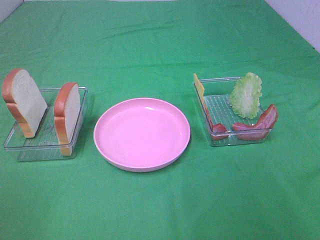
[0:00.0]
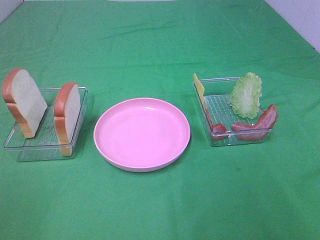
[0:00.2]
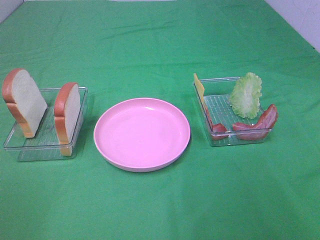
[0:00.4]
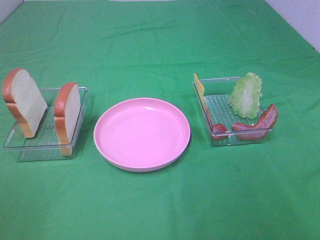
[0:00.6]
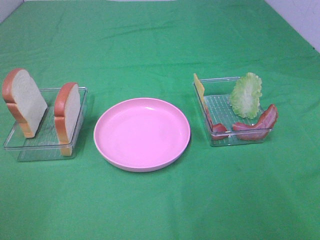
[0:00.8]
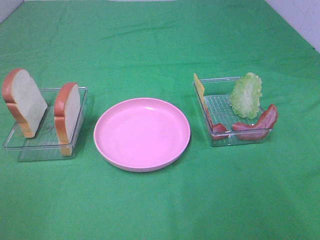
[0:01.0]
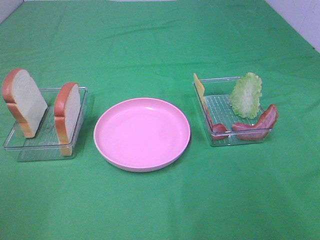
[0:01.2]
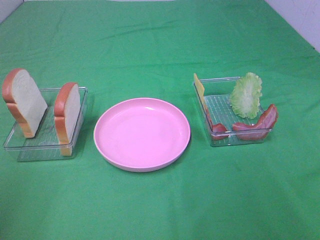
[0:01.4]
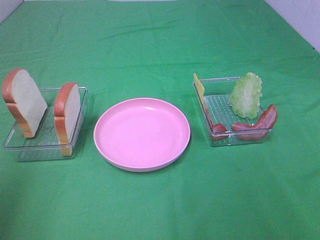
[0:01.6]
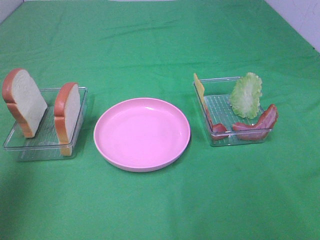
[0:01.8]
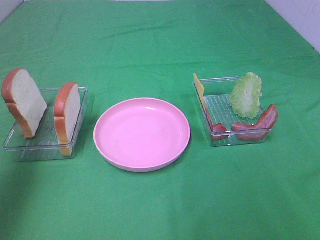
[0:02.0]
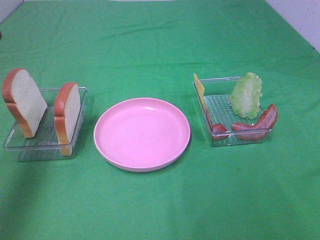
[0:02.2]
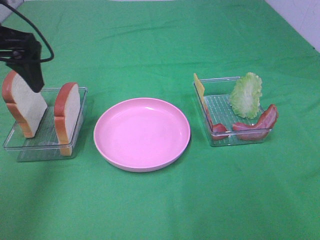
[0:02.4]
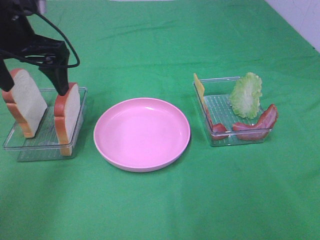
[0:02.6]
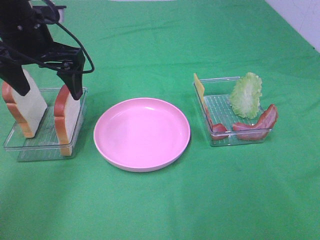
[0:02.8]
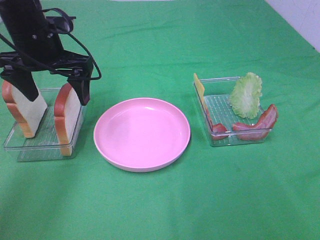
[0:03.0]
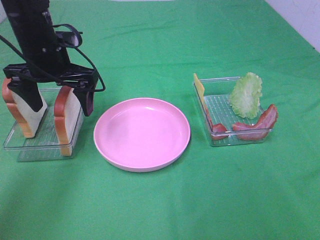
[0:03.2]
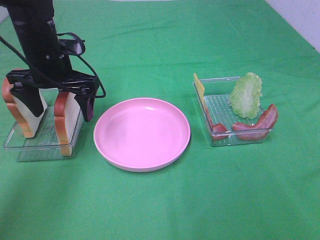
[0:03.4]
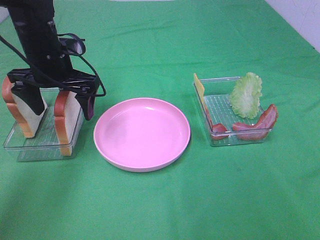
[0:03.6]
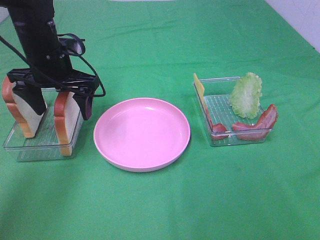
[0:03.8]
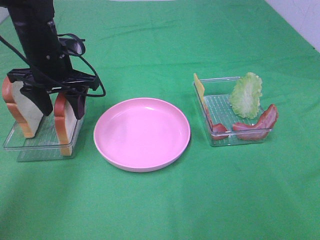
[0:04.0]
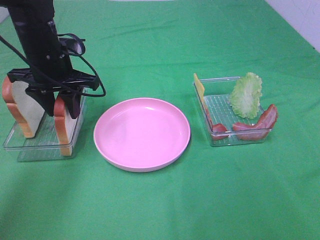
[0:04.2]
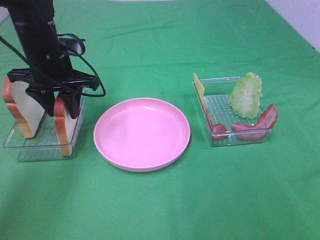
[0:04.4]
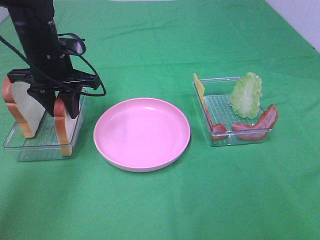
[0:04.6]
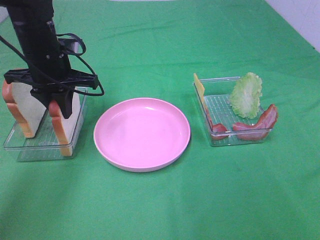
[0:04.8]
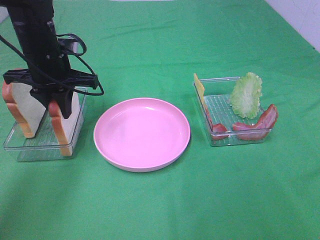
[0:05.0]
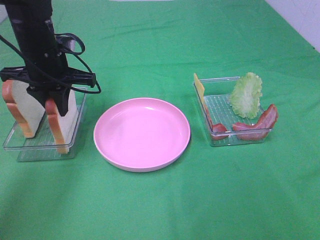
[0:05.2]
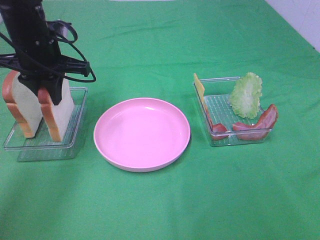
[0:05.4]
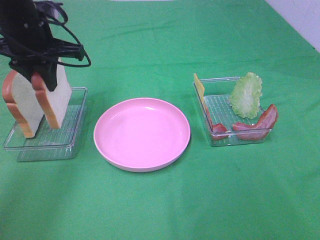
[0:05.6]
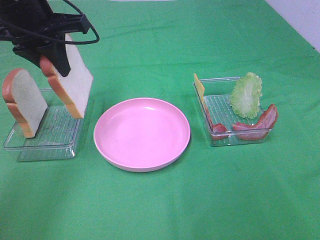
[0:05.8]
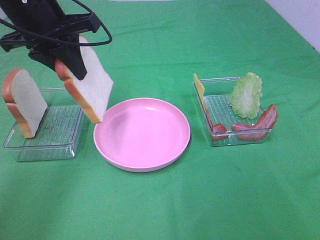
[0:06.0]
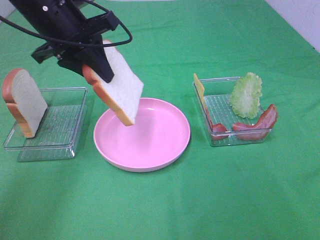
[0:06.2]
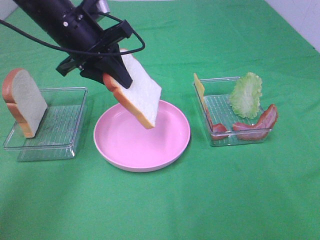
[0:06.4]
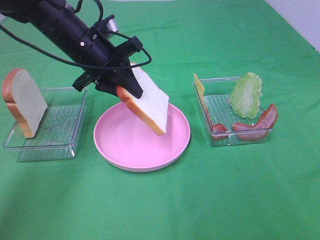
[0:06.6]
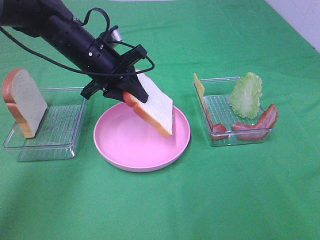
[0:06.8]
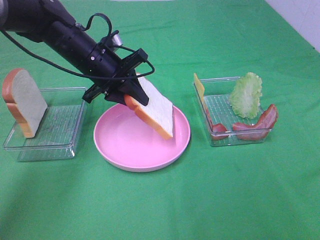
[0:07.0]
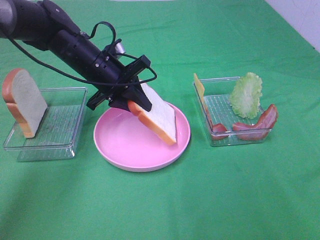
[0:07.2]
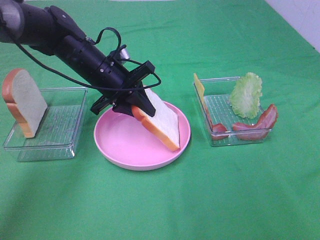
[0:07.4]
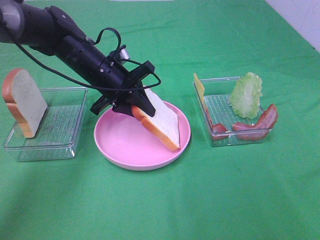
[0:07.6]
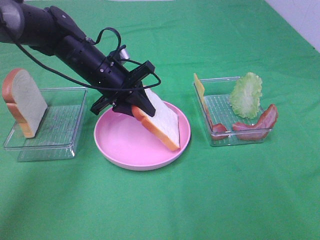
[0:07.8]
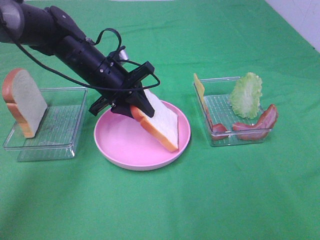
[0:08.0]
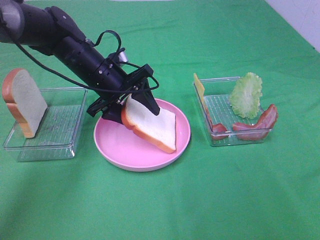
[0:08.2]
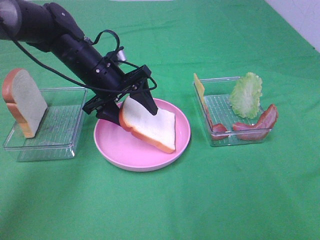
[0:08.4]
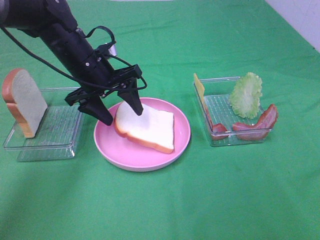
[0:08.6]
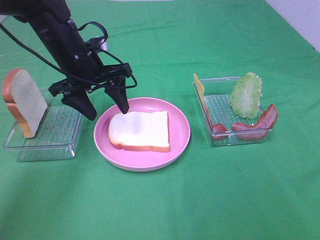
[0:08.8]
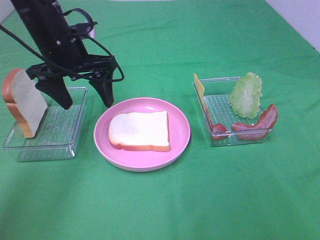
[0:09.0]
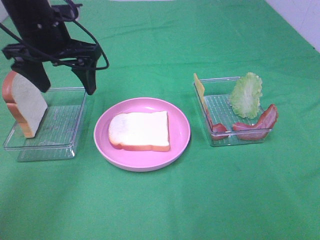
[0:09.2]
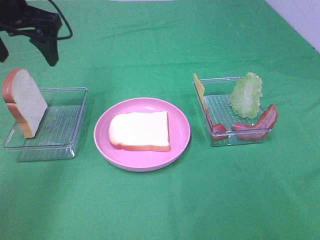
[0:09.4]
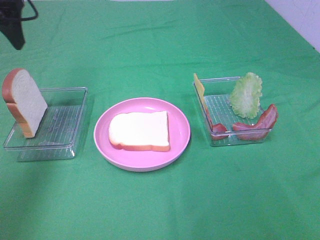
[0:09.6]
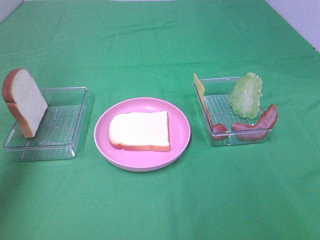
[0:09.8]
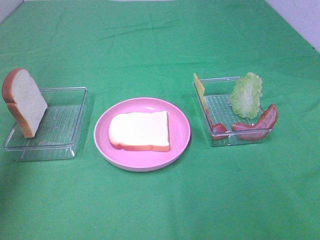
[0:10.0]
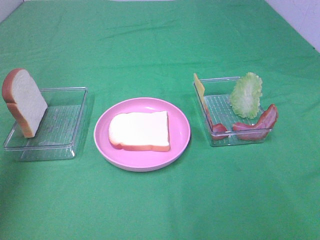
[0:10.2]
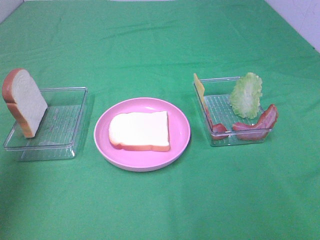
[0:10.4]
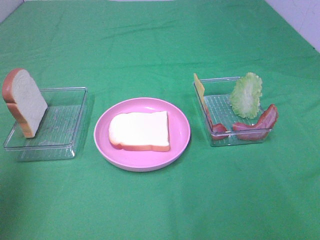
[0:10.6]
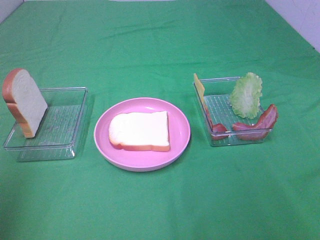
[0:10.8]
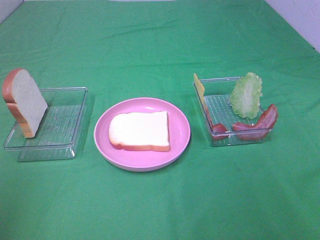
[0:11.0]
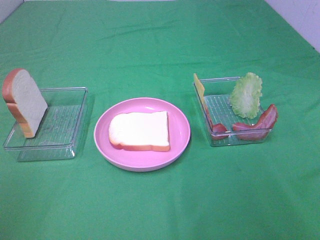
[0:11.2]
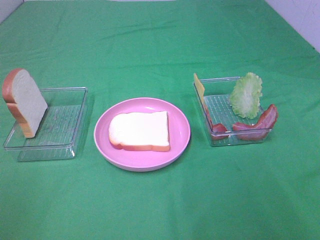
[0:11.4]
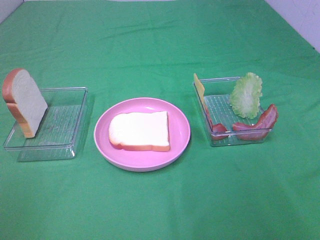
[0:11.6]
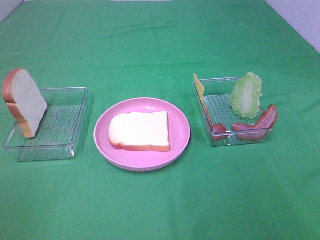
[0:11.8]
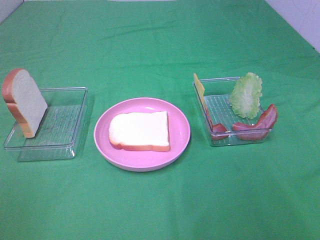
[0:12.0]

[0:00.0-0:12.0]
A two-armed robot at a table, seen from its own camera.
Task of the whole recording: Make sandwiches.
Step, 0:00.0 to 0:05.0: Left hand:grab the bread slice.
Step, 0:05.2 to 0:08.8: Left hand:place the bread slice on the plate.
0:01.6 to 0:03.0: The left gripper moves forward, to the right and downward, some 30 cm.
0:03.0 to 0:04.4: The left gripper closes up.
0:04.4 to 0:06.0: The left gripper goes roughly 10 cm upward.
0:06.0 to 0:07.6: The left gripper travels downward and to the right by roughly 15 cm.
0:07.6 to 0:09.0: The left gripper moves upward and to the left, approximately 10 cm, and opens.
0:09.0 to 0:10.4: The left gripper goes about 25 cm to the left, backward and upward.
0:10.4 to 0:12.0: The left gripper heads backward, covering approximately 25 cm.

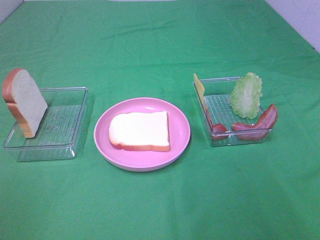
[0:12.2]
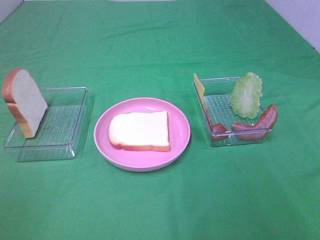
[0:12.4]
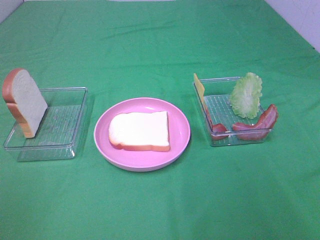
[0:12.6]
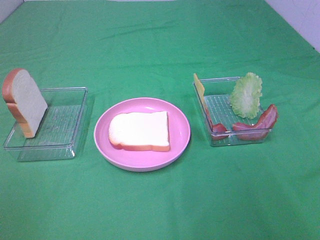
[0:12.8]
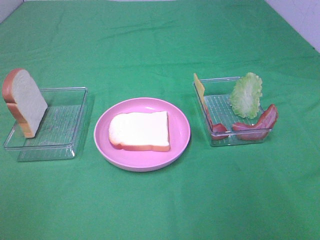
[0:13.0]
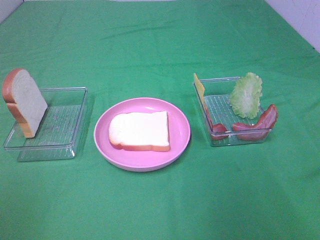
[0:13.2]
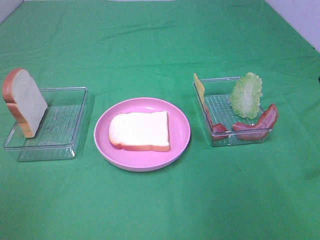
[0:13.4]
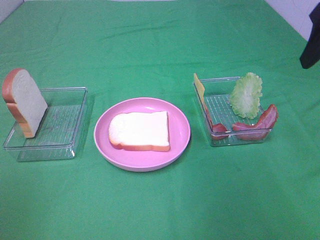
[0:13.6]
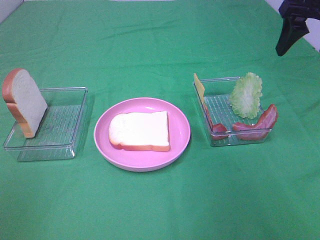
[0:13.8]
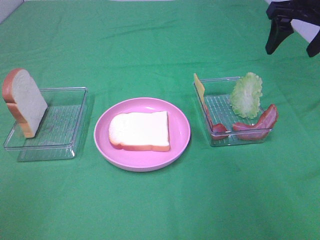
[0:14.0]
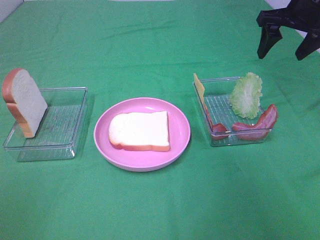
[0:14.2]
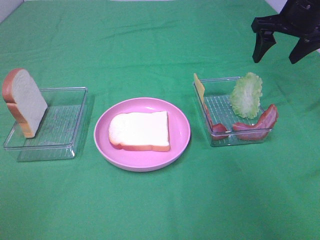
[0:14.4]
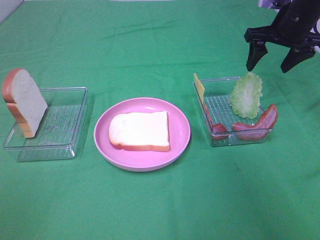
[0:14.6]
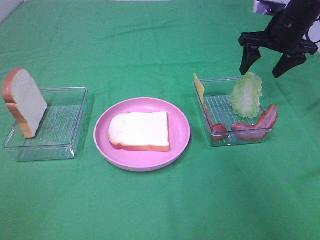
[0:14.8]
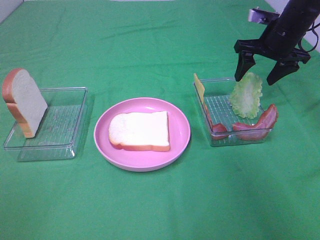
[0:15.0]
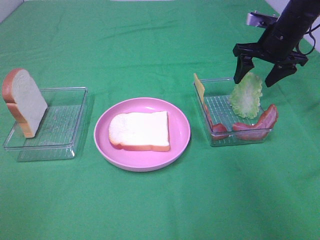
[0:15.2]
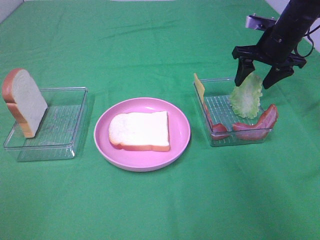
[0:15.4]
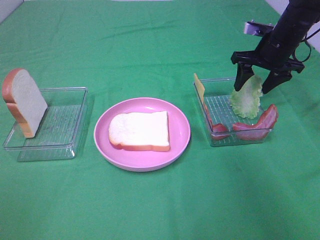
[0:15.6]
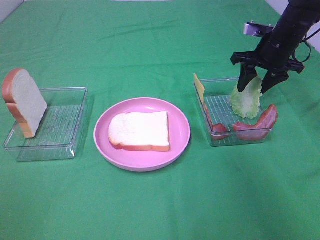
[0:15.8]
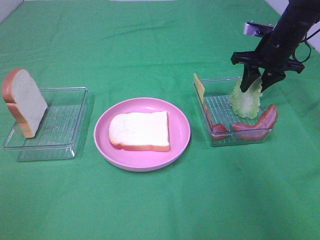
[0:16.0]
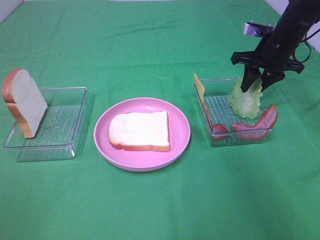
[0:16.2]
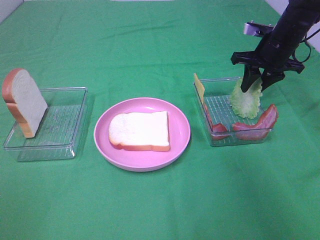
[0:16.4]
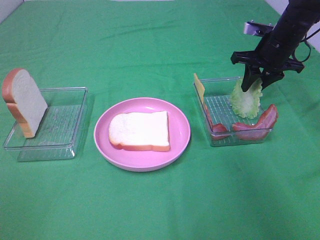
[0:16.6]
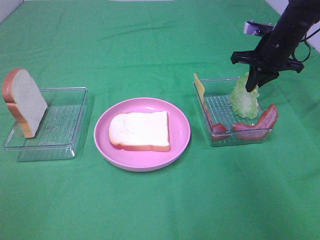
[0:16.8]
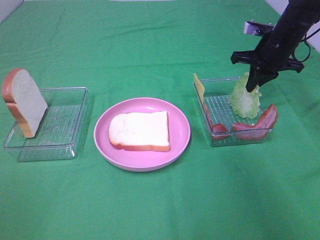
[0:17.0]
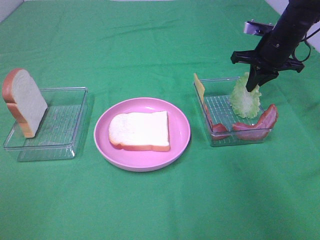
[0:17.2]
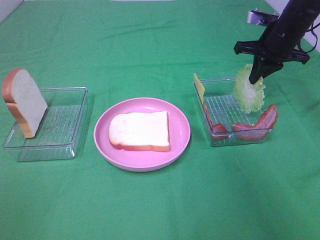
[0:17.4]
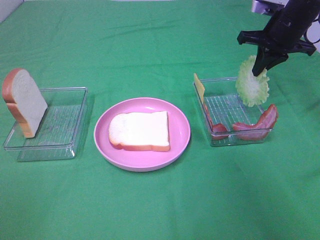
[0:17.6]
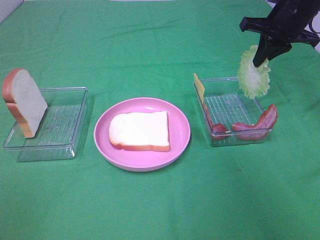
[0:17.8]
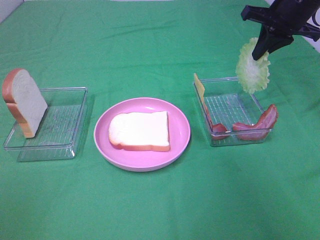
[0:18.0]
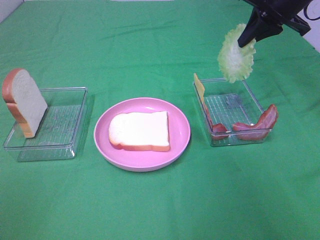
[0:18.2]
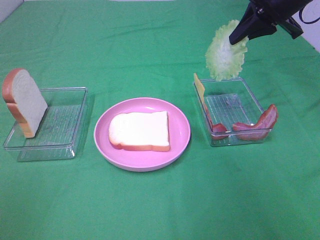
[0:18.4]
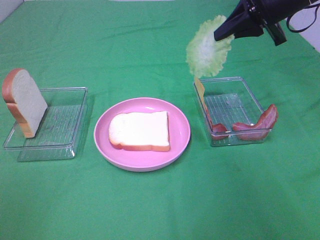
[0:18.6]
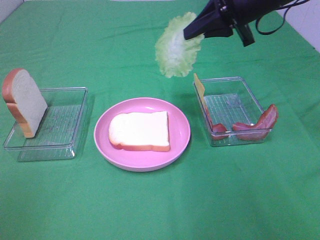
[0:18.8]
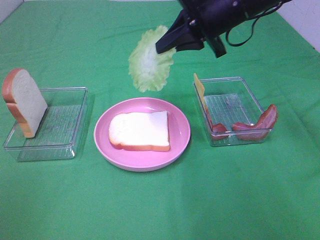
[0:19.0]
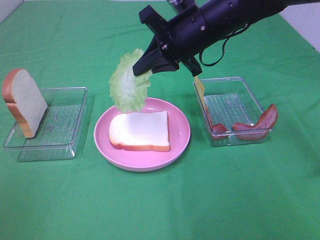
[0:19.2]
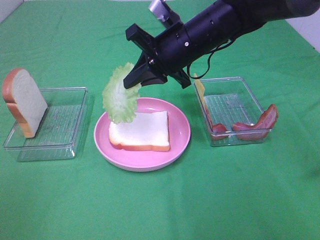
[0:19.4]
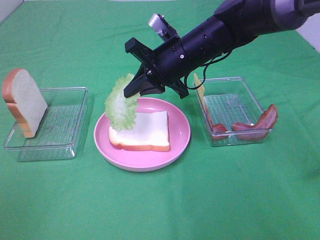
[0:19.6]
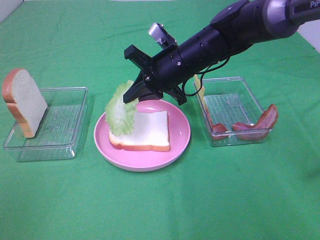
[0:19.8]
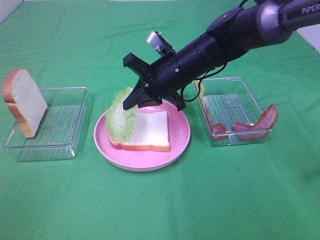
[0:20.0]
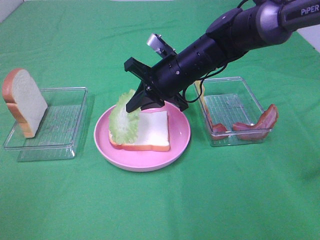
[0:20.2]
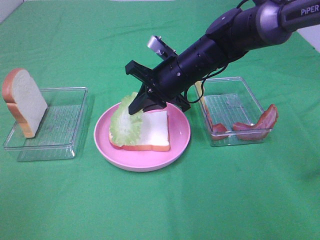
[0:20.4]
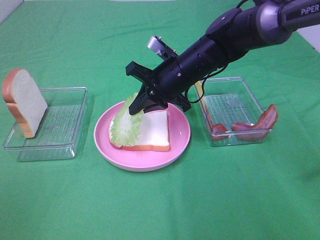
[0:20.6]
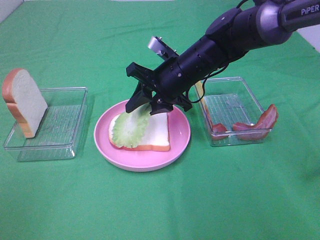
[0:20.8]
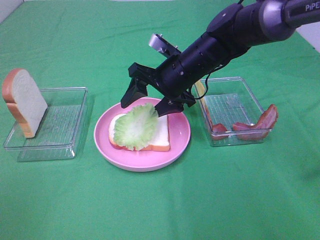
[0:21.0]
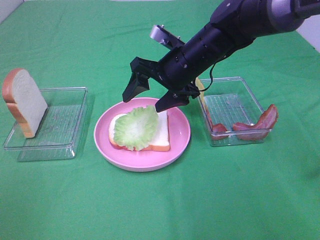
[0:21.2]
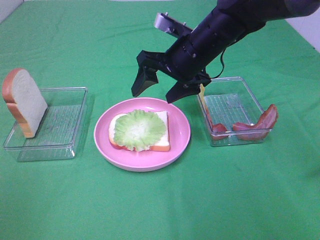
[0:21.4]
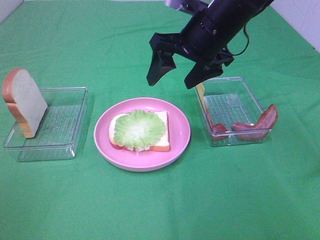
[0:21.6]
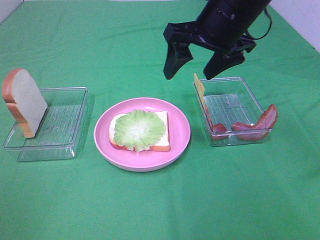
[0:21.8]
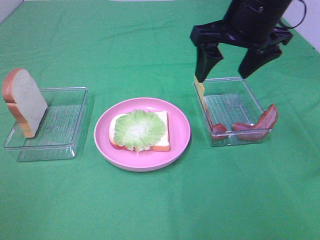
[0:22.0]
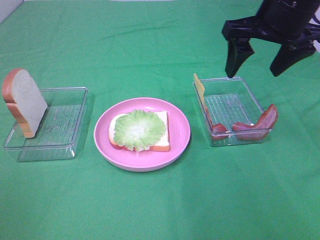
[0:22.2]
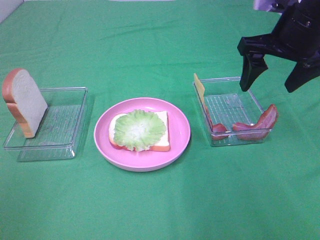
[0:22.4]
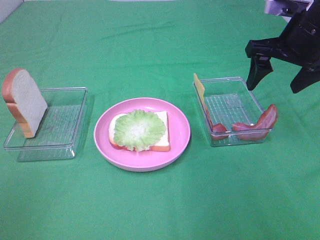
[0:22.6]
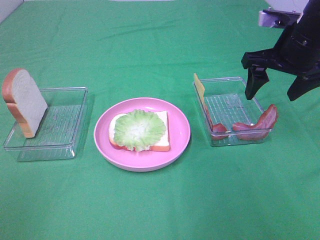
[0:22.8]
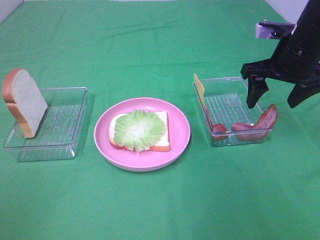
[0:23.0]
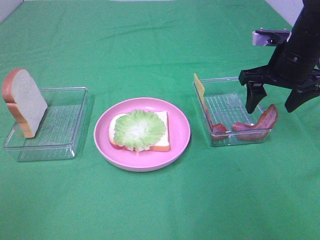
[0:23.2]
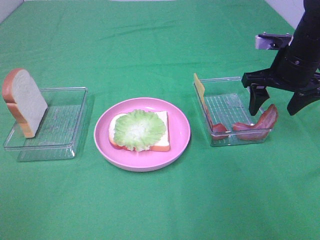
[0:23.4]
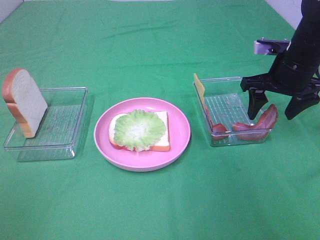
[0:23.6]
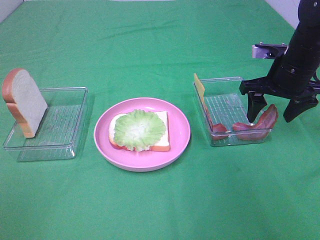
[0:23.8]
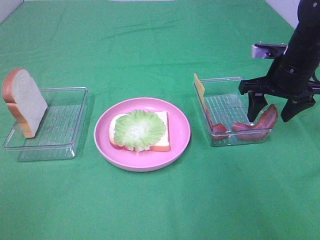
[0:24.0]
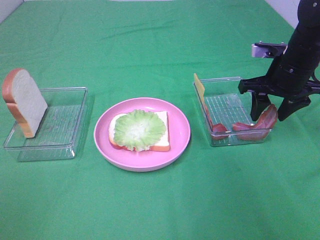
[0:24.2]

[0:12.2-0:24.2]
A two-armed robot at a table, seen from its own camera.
Task of the whole recording: Make sandwiches.
0:12.2 to 0:13.8: The right gripper goes approximately 35 cm forward.
0:13.8 to 0:15.2: The right gripper heads downward and forward, covering roughly 15 cm.
0:15.2 to 0:16.6: The right gripper closes up.
0:16.6 to 0:18.2: The right gripper shifts approximately 10 cm upward, and closes up.
0:18.2 to 0:19.8: The right gripper moves to the left and downward, roughly 20 cm.
0:19.8 to 0:21.2: The right gripper opens.
0:21.2 to 0:22.6: The right gripper heads to the right and upward, covering roughly 20 cm.
0:22.6 to 0:24.2: The right gripper moves downward, about 10 cm.
